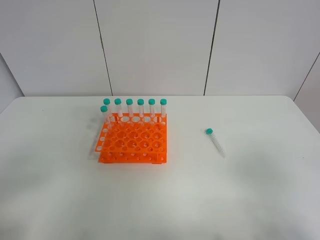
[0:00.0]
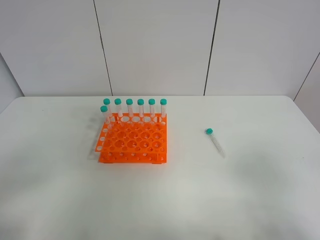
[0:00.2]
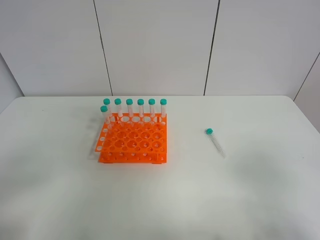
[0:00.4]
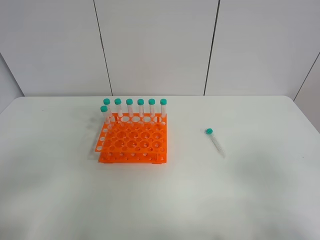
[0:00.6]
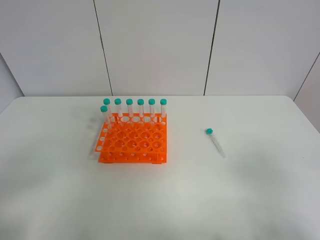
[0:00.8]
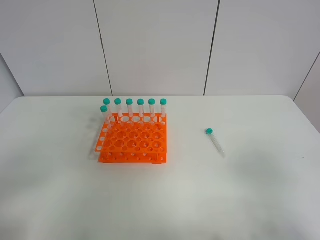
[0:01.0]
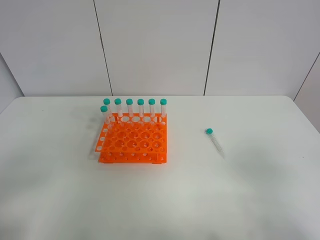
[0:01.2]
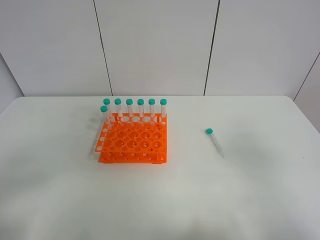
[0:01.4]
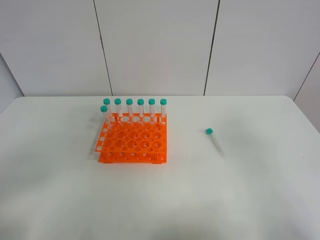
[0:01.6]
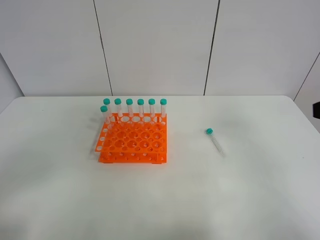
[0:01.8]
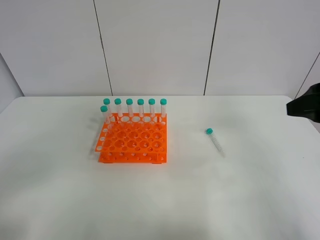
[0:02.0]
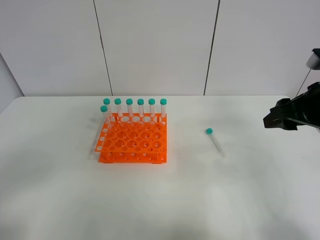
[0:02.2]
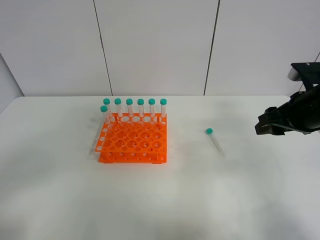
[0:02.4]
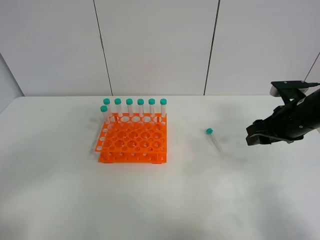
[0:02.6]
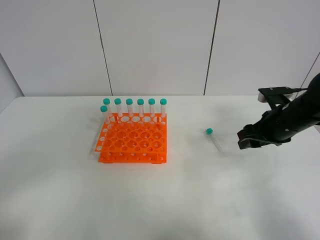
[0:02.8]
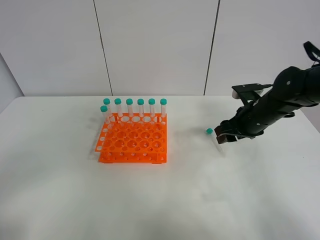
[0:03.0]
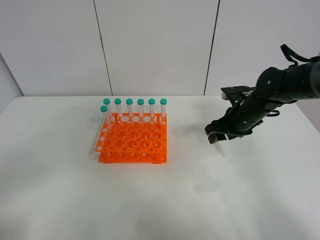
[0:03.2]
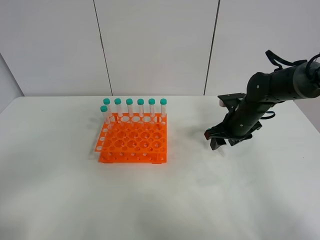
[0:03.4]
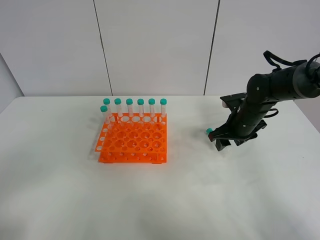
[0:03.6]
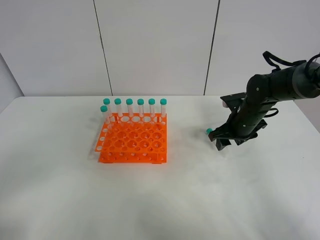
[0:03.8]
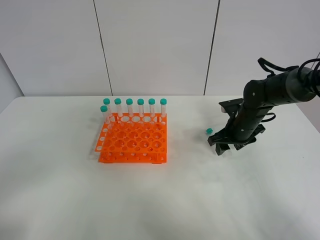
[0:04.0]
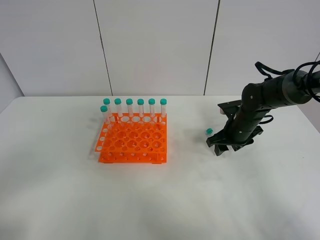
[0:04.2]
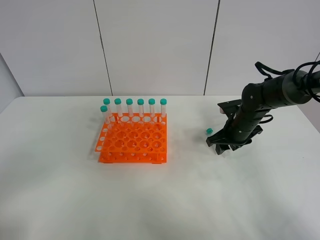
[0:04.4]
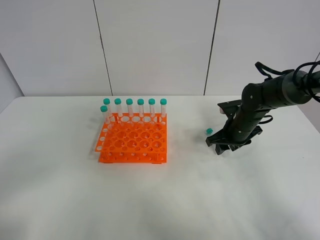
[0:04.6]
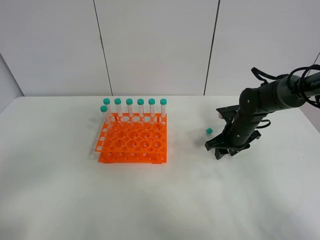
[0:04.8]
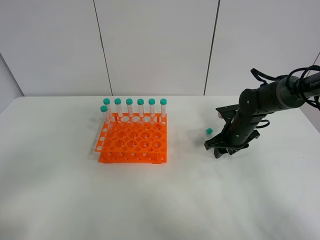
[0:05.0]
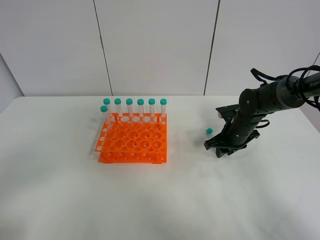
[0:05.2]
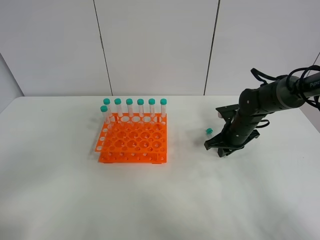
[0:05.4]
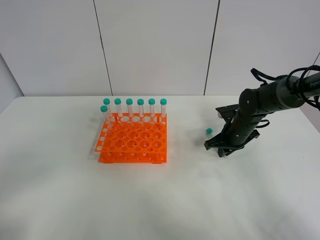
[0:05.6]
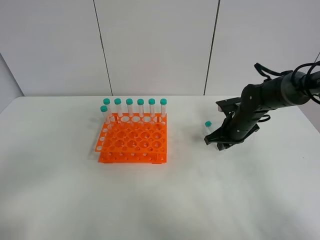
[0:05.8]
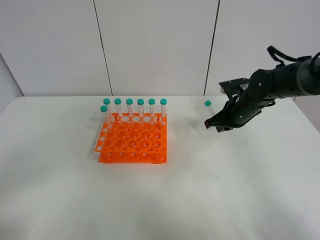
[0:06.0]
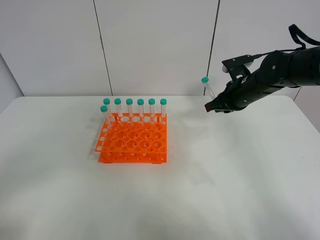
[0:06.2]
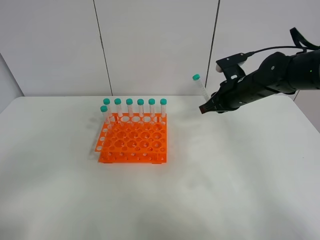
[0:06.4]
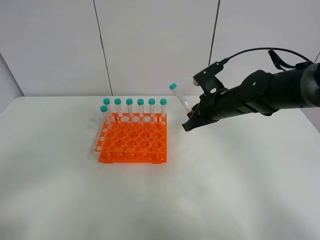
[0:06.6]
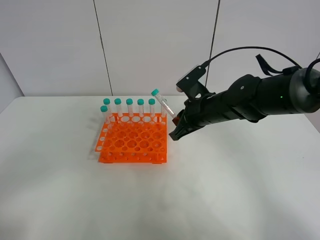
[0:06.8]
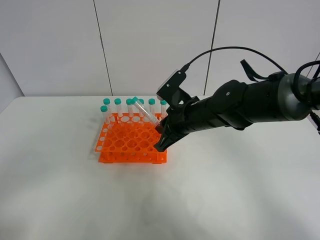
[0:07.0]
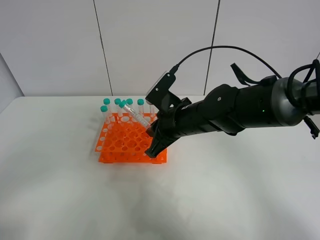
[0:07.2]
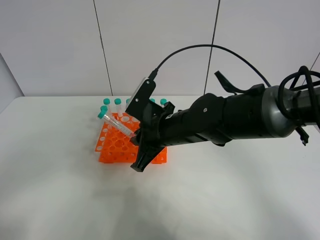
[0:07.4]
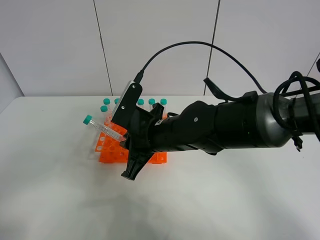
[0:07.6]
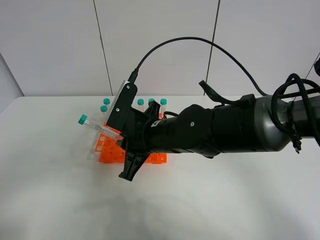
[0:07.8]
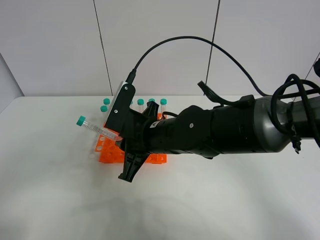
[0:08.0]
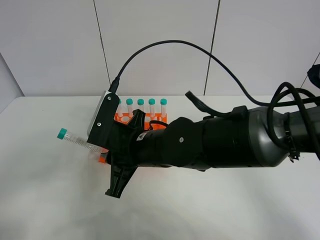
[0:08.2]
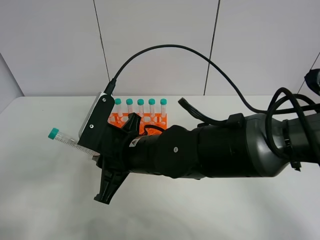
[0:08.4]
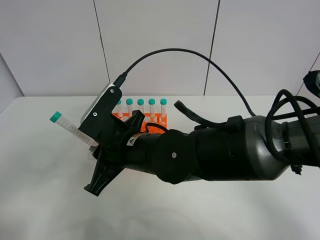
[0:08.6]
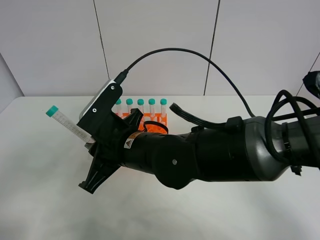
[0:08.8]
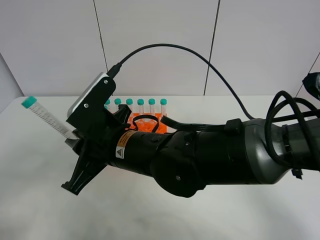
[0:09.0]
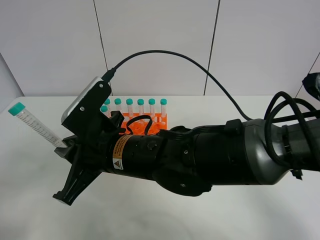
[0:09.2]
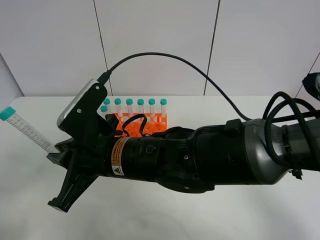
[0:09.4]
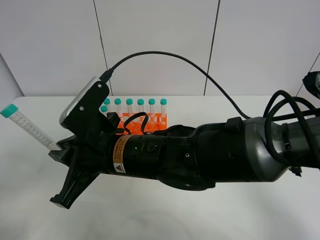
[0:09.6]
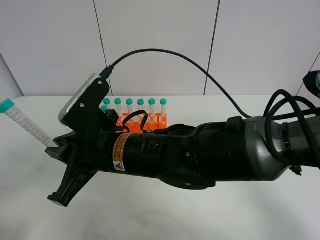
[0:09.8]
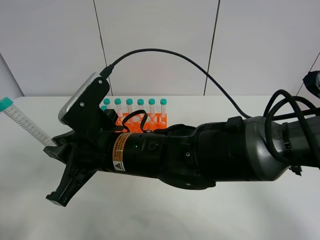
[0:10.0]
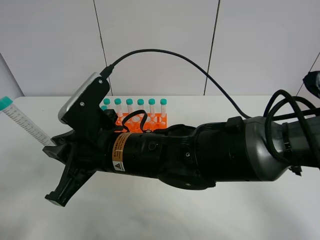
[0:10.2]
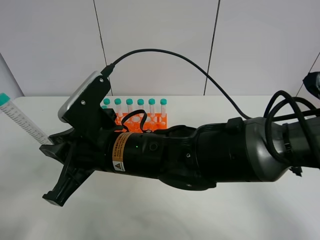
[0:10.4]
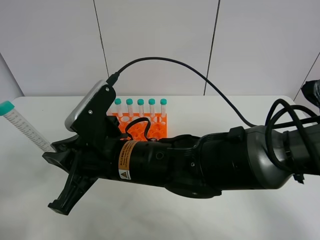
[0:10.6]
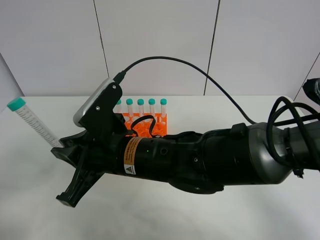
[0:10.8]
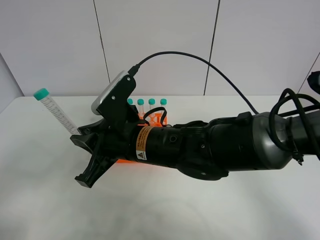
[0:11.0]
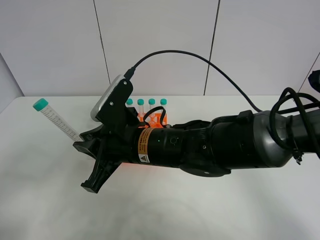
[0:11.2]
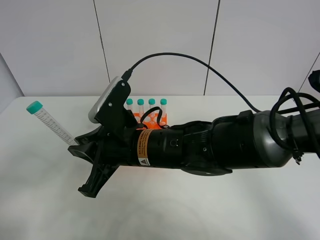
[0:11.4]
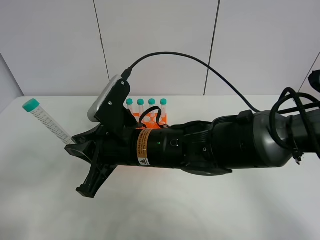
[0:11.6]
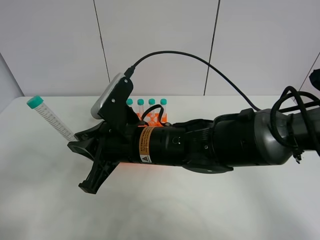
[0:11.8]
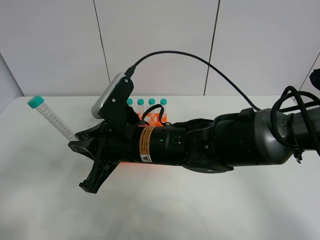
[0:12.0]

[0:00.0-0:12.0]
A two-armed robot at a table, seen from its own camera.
Task of the whole recording: Put the test tube on the table back onto the test tube rack.
Step, 0:00.0 to 0:06.2: Pick up the test tube with the right gripper.
0:00.0 to 0:01.6: The right gripper is displaced forward and upward by roughly 10 cm.
0:01.6 to 0:03.0: The right gripper goes roughly 30 cm forward and downward.
0:03.0 to 0:04.4: The right gripper moves downward, approximately 5 cm.
0:04.4 to 0:06.0: The right gripper goes roughly 5 cm upward, and closes its fingers.
0:06.0 to 0:07.6: The right gripper heads to the left and backward, covering about 25 cm.
0:07.6 to 0:09.0: The right gripper shifts approximately 10 cm to the left and backward.
0:09.0 to 0:10.4: The grippers move only a little.

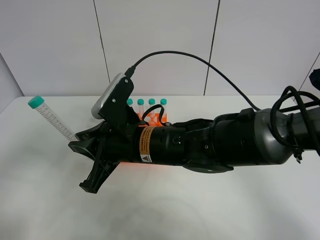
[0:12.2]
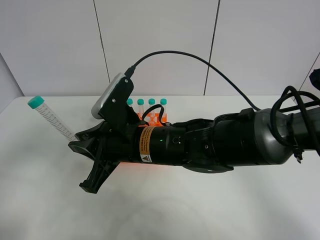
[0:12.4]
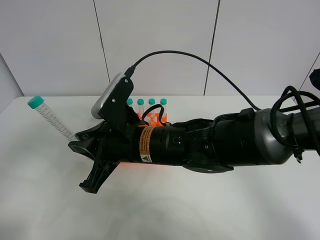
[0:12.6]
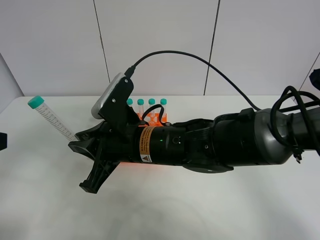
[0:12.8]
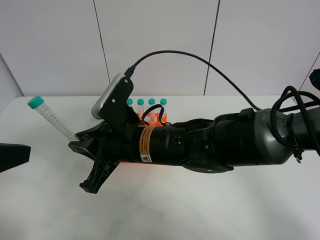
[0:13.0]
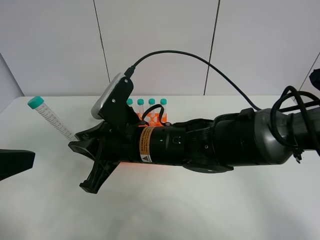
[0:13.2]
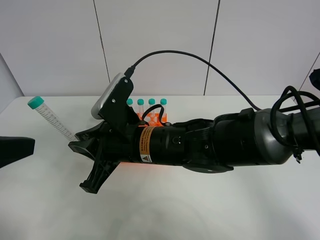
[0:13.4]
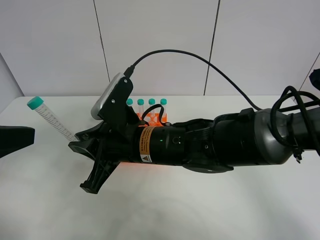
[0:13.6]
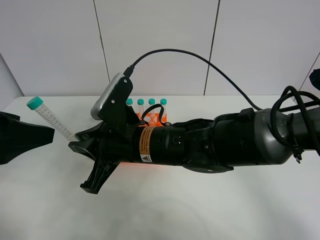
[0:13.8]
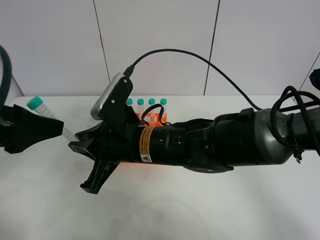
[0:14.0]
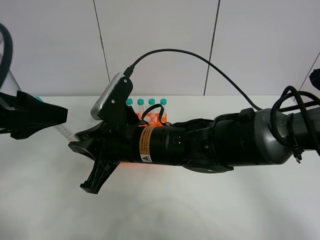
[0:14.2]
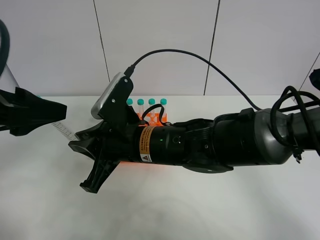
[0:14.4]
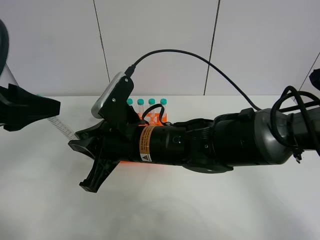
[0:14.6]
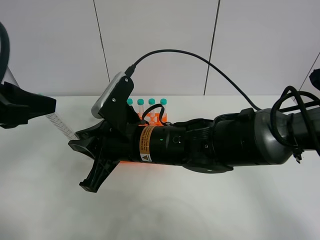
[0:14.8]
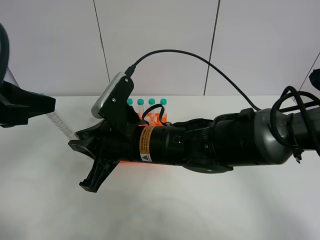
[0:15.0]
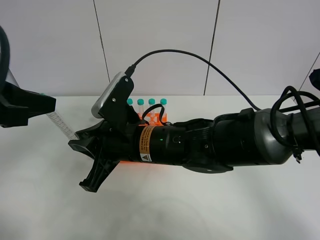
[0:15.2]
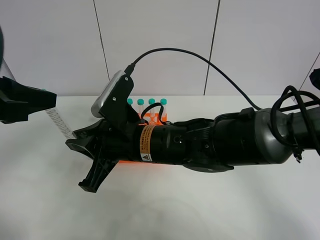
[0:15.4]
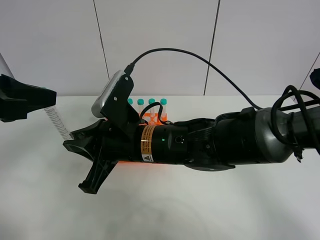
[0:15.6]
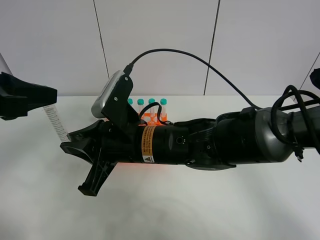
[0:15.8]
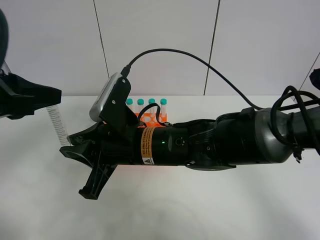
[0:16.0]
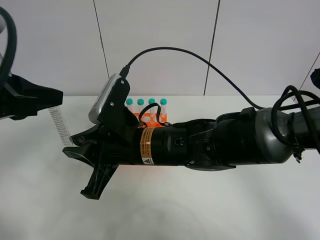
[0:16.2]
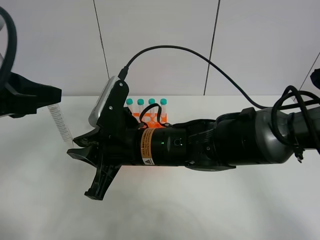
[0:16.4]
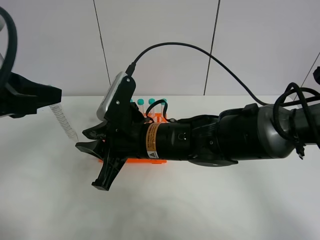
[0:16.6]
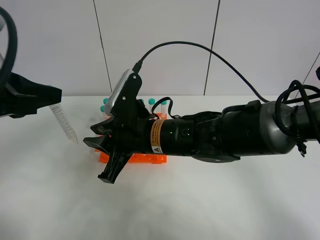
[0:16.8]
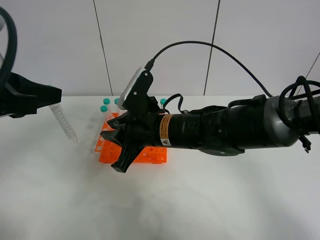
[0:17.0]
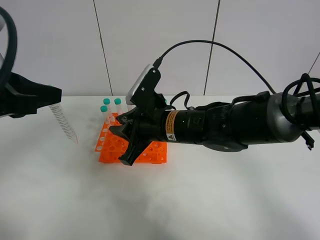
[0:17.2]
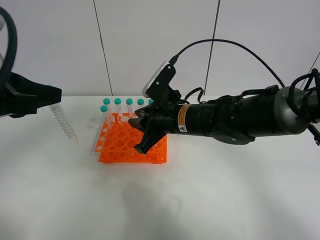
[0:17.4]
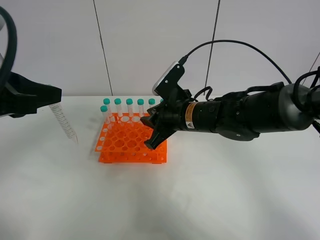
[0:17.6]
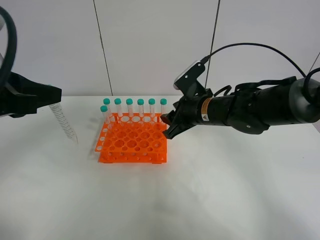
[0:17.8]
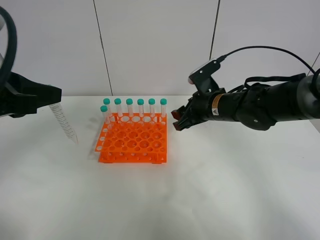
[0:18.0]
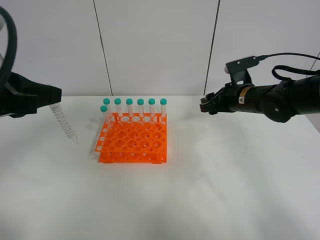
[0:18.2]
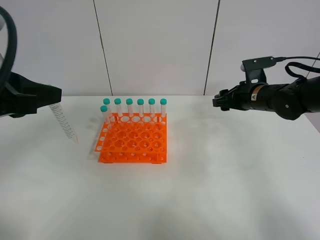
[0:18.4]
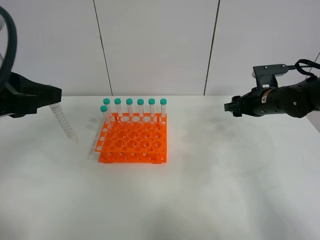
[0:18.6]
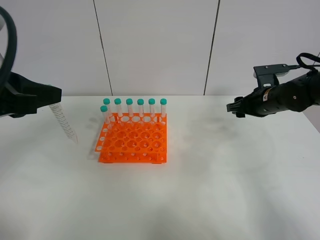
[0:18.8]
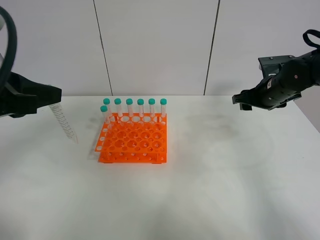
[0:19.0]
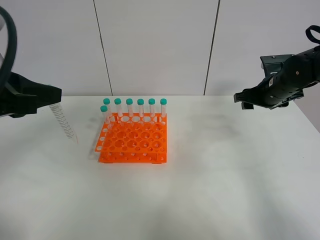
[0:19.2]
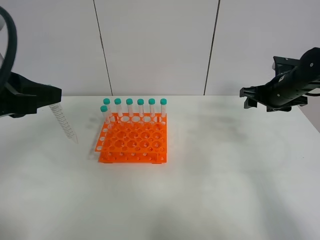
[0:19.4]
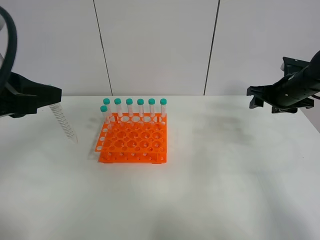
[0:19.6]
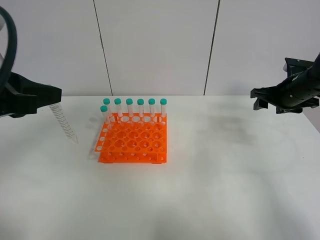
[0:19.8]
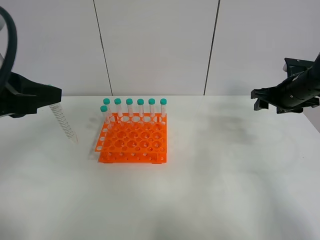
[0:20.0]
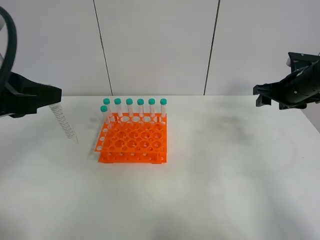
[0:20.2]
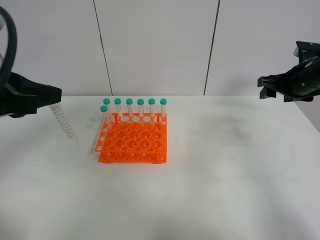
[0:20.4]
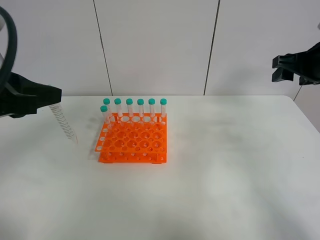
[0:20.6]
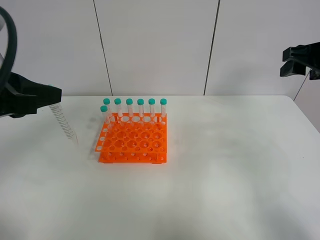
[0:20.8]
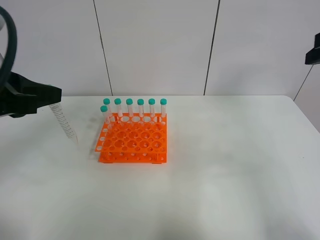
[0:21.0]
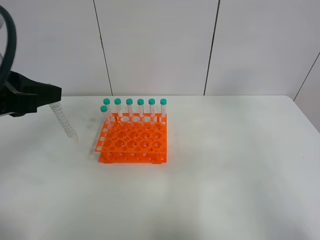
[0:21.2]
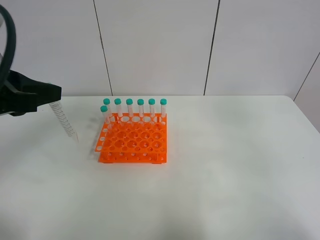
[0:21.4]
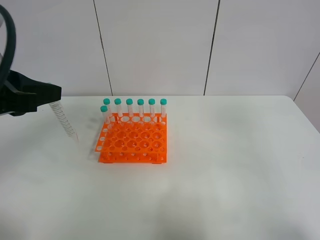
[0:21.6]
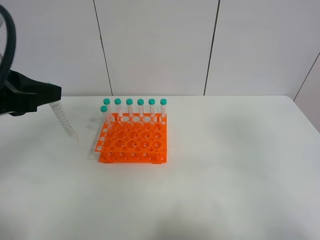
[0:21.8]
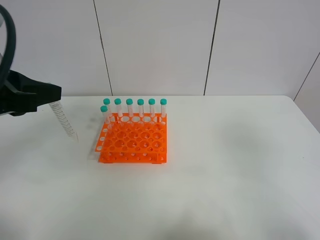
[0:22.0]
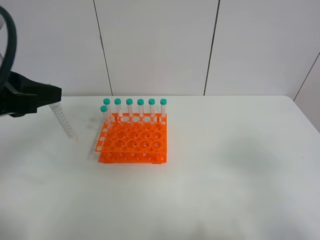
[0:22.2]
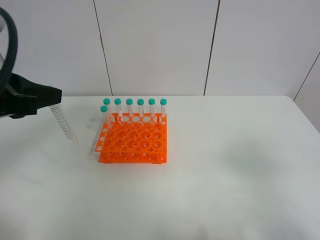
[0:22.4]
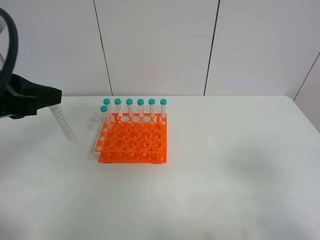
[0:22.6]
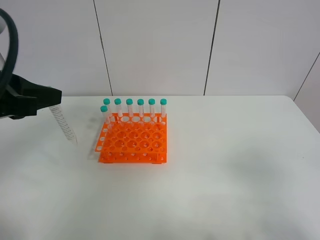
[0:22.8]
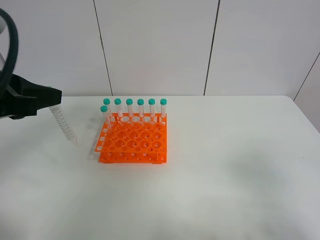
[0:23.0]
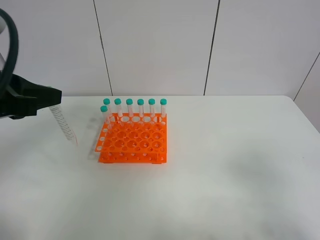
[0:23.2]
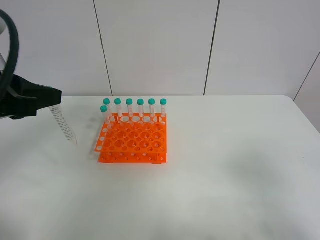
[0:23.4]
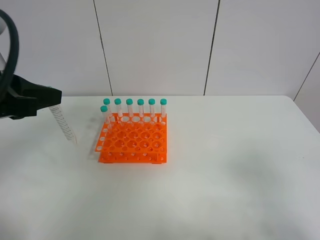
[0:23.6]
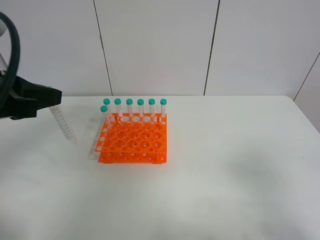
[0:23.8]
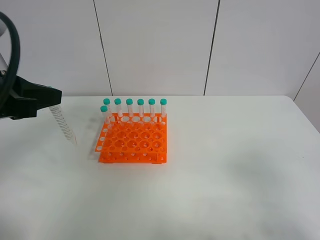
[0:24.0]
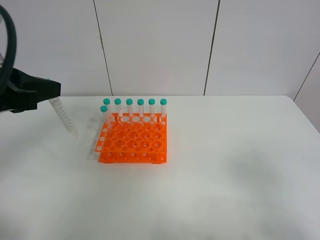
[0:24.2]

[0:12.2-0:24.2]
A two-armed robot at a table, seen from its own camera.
Task of the whole recording: Put the test tube on the table back onto the test tube rack.
Step, 0:12.2 to 0:17.6: Move the test tube from the right gripper to the left gripper.
0:12.2 to 0:13.8: The left gripper moves forward, roughly 10 cm.
0:13.8 to 0:15.2: The left gripper closes.
0:15.2 to 0:16.6: The grippers make only small movements.
0:16.6 to 0:18.2: The right gripper is displaced to the right and forward by roughly 25 cm, and opens up.
0:18.2 to 0:19.8: The right gripper heads to the right, covering about 10 cm.
0:19.8 to 0:21.2: The right gripper shifts some 30 cm backward and upward.
0:21.2 to 0:22.6: The right gripper moves backward and downward, roughly 20 cm.
0:22.6 to 0:24.2: Both grippers stay put.
